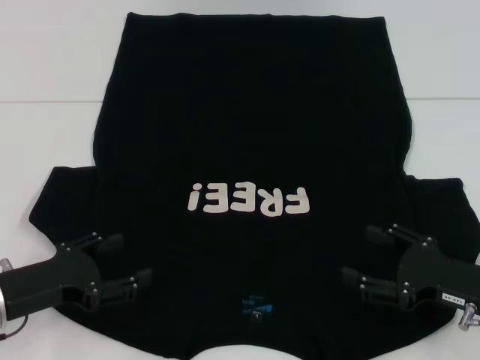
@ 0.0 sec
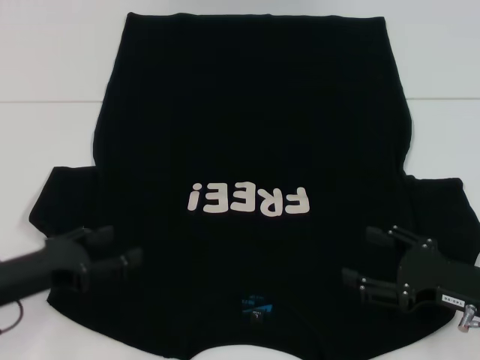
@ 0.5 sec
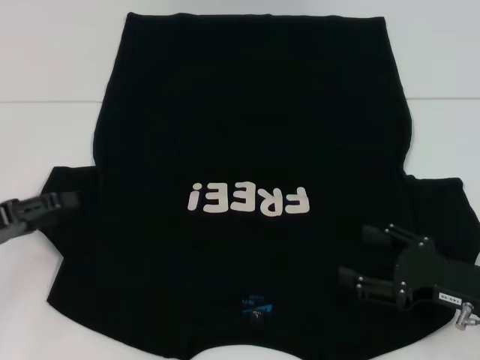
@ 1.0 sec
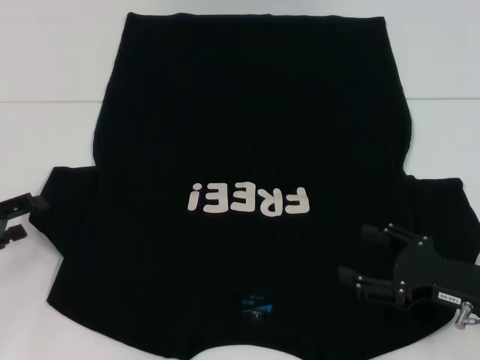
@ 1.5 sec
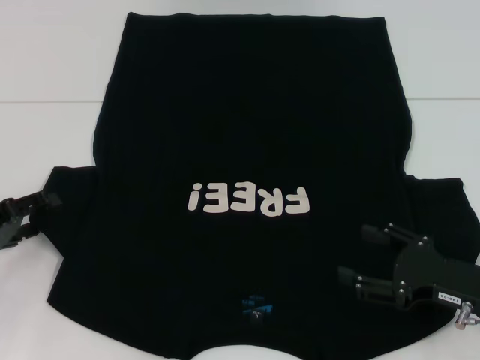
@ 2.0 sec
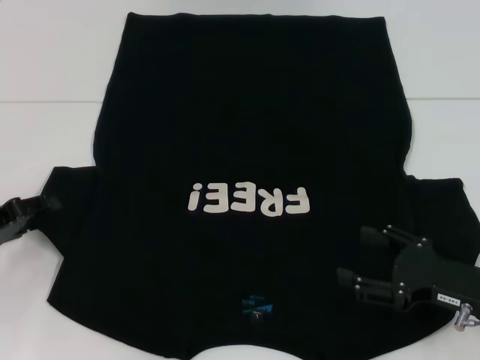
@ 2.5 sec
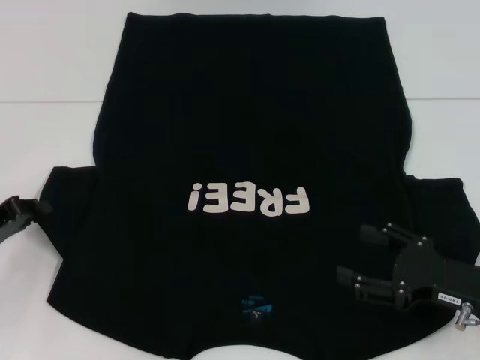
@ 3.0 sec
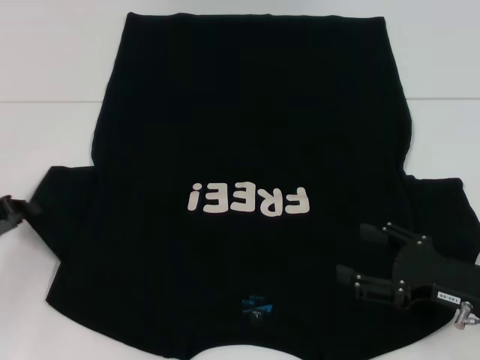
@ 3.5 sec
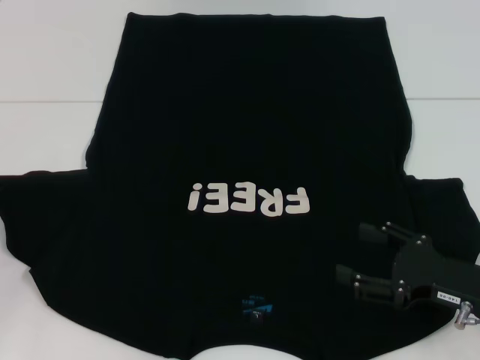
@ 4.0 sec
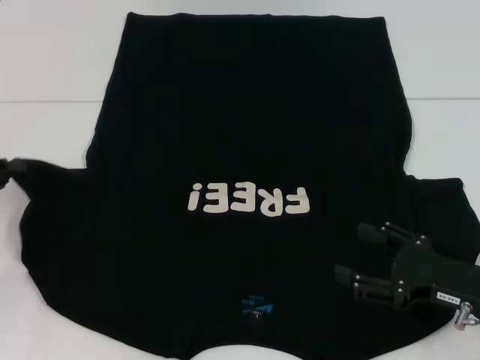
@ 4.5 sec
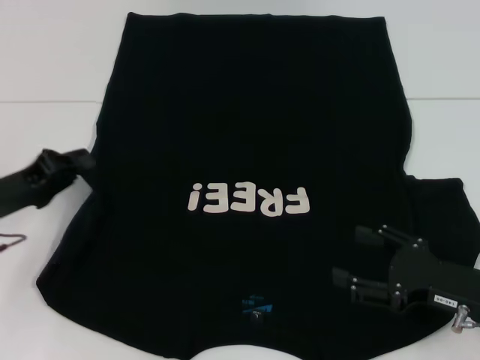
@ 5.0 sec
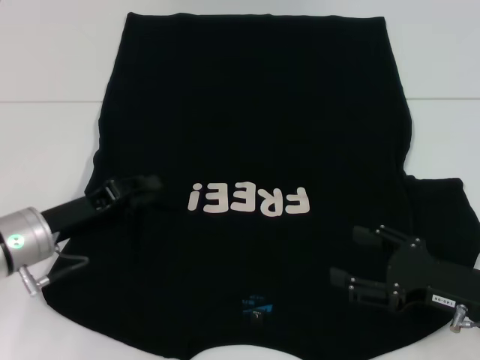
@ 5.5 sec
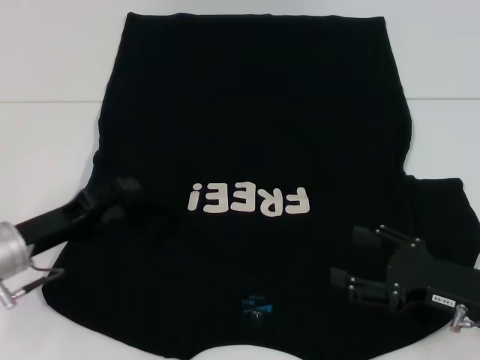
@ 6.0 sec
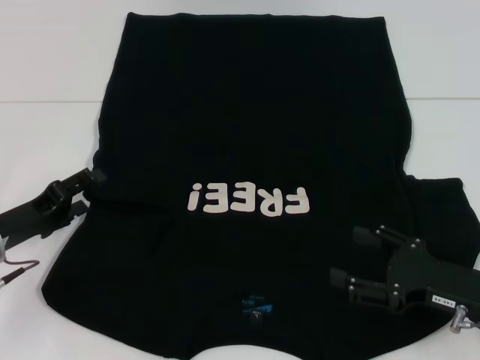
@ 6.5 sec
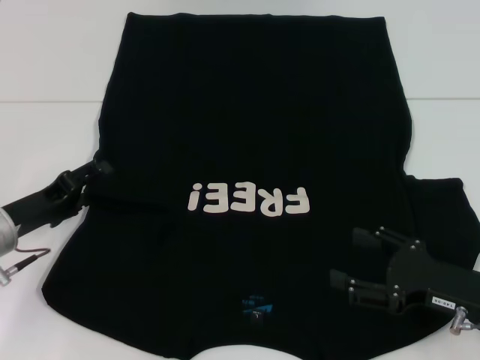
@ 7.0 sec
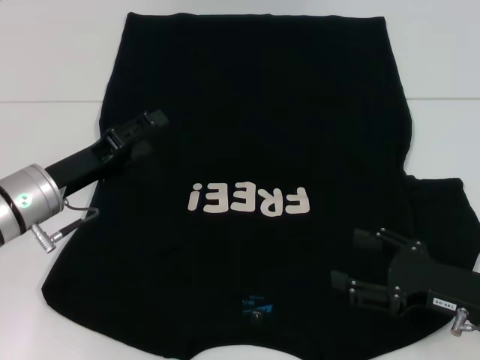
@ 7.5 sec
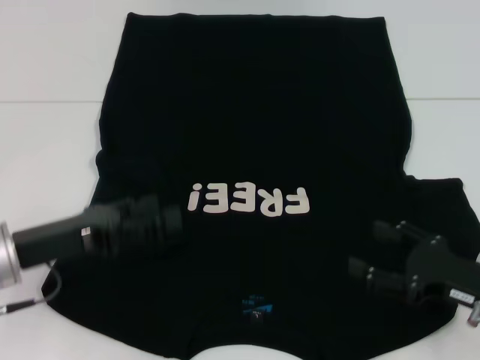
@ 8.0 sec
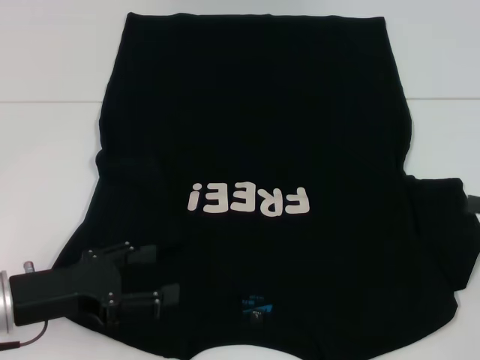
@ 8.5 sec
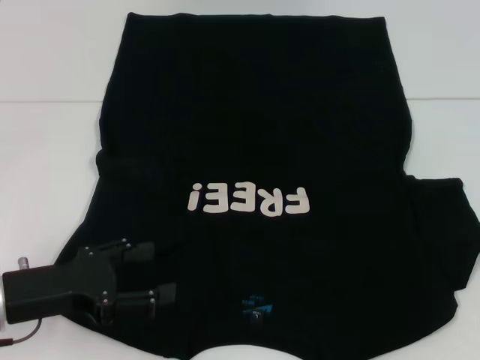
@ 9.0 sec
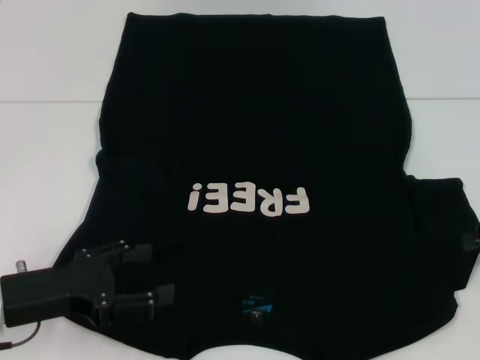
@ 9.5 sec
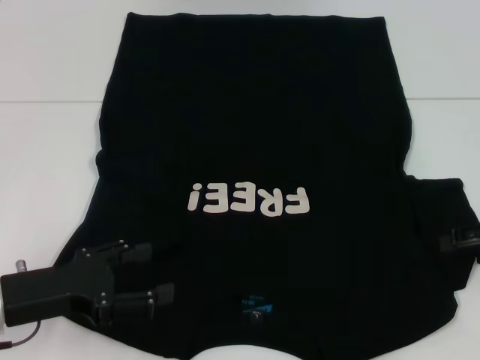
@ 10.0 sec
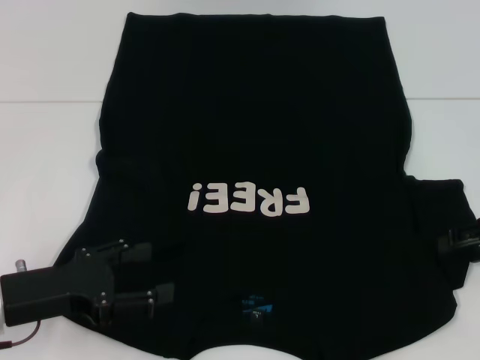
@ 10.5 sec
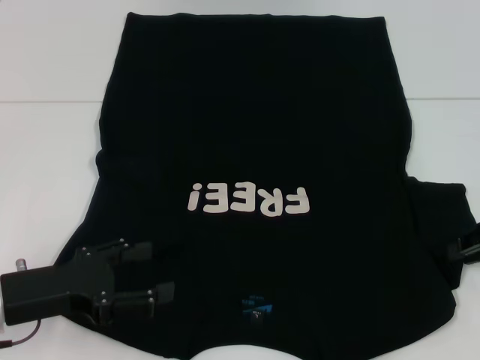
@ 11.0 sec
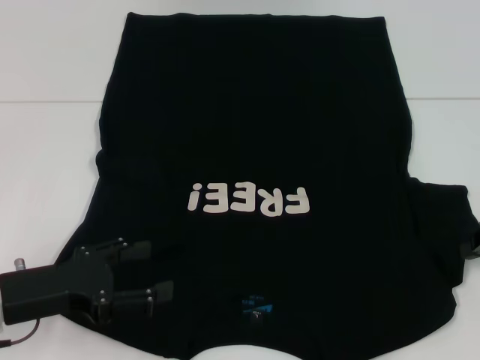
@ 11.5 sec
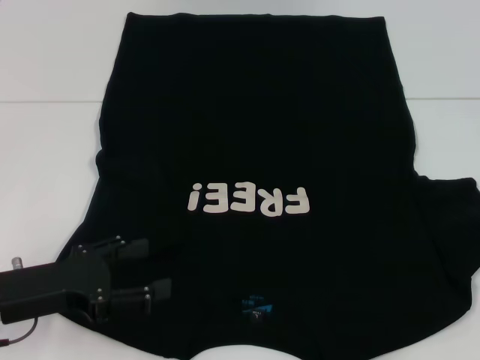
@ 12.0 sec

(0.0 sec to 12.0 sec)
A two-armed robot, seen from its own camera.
Step, 0.0 sec - 7.5 sec: Fold the bottom left sleeve with your left hand.
0.0 sec - 2.0 sec: The left gripper is displaced to the left by roughly 5 cm.
2.0 sec - 4.0 sec: The left gripper closes.
4.0 sec - 6.0 sec: The left gripper is displaced to the right by some 10 cm, and opens its fingers.
8.0 sec - 10.0 sec: The right gripper shifts about 15 cm upward, forward and to the right.
10.0 sec - 12.0 sec: The right gripper closes up.

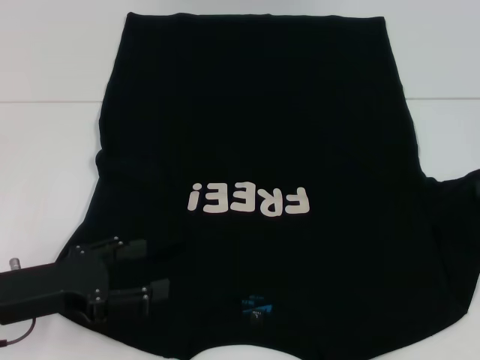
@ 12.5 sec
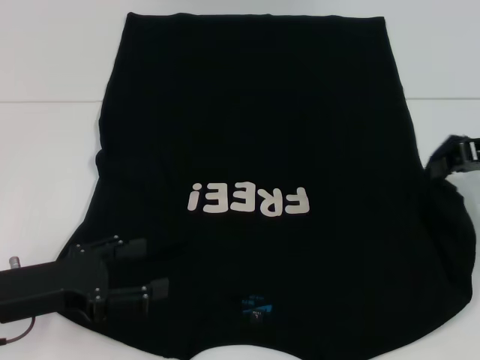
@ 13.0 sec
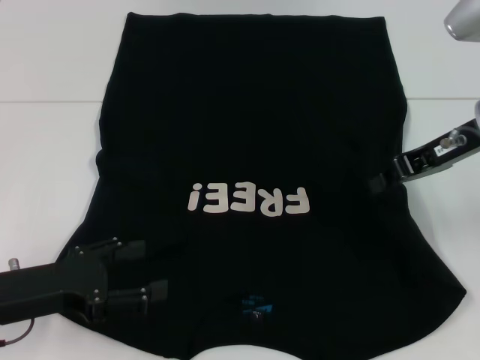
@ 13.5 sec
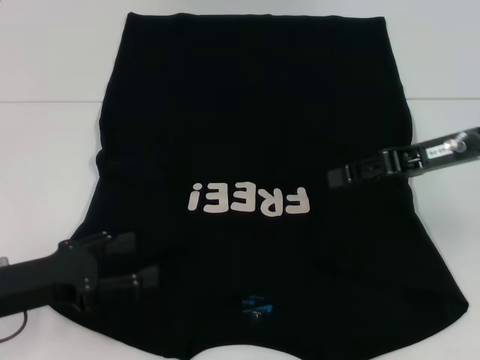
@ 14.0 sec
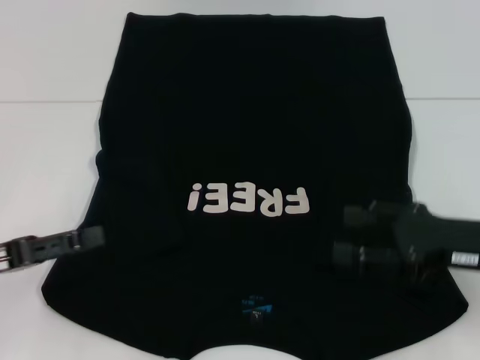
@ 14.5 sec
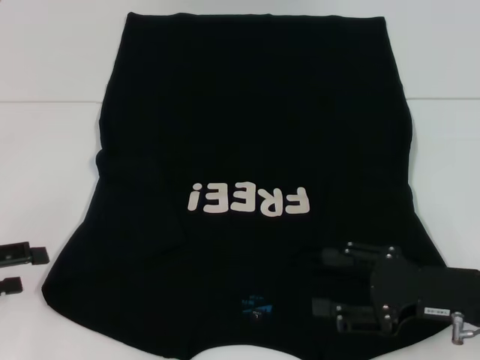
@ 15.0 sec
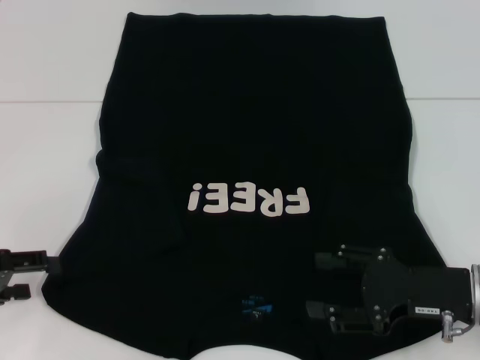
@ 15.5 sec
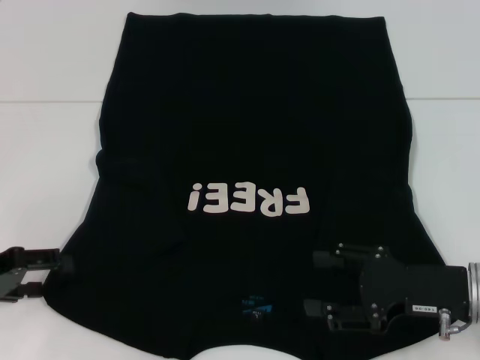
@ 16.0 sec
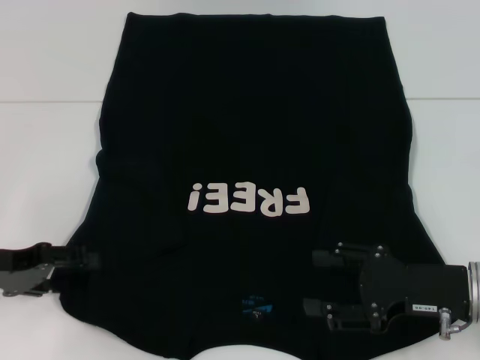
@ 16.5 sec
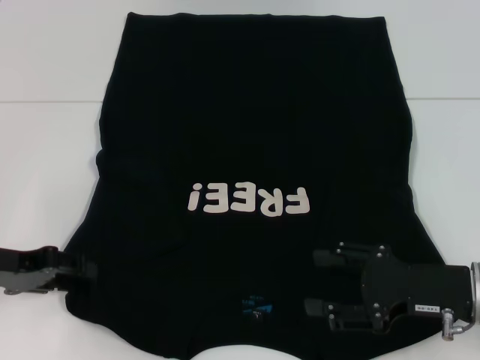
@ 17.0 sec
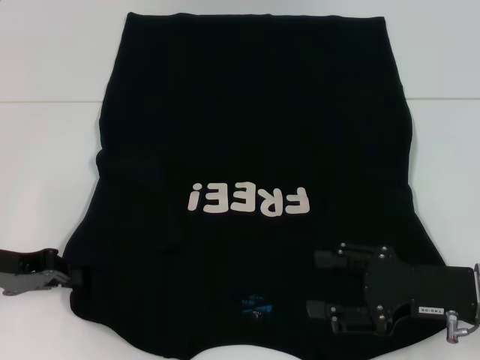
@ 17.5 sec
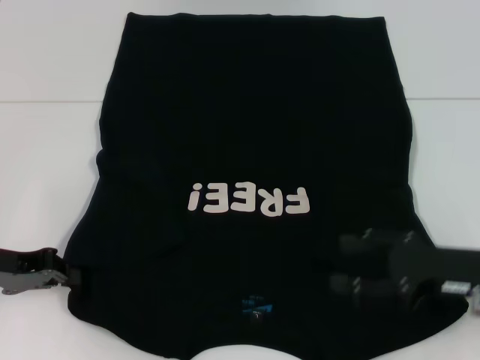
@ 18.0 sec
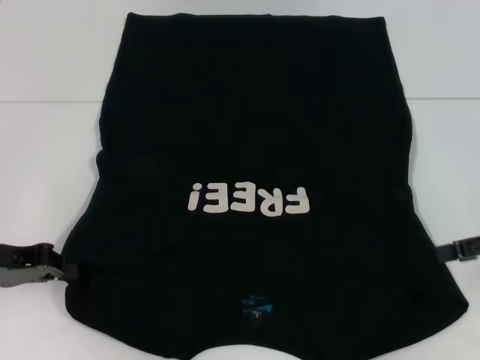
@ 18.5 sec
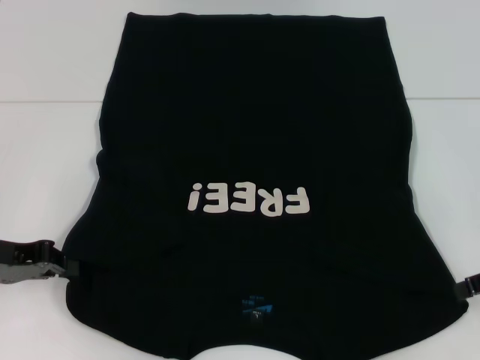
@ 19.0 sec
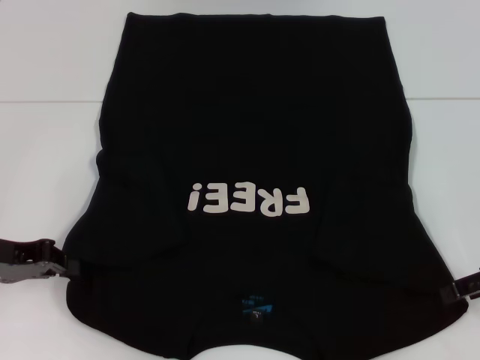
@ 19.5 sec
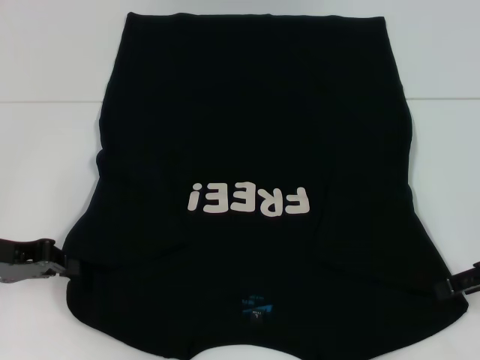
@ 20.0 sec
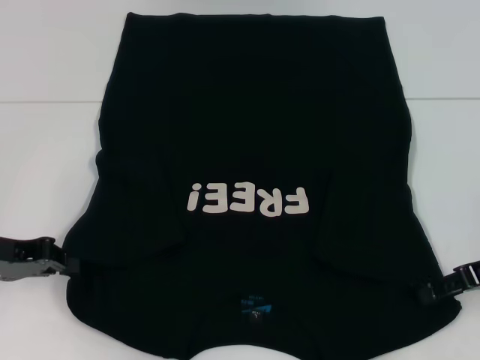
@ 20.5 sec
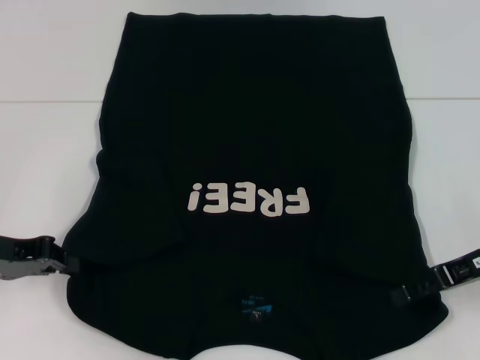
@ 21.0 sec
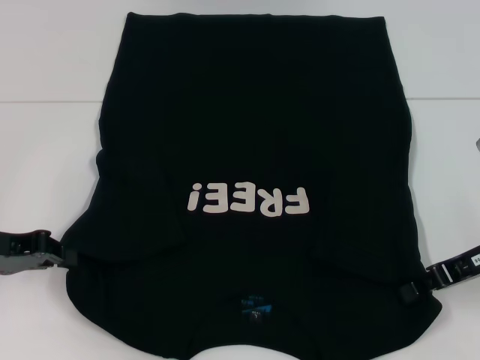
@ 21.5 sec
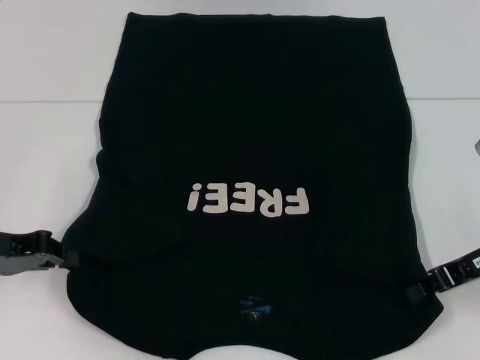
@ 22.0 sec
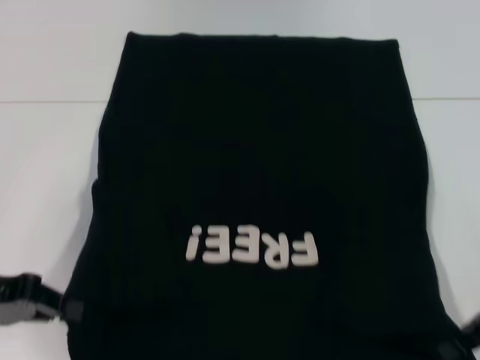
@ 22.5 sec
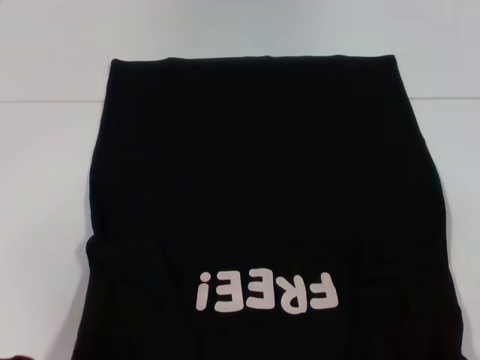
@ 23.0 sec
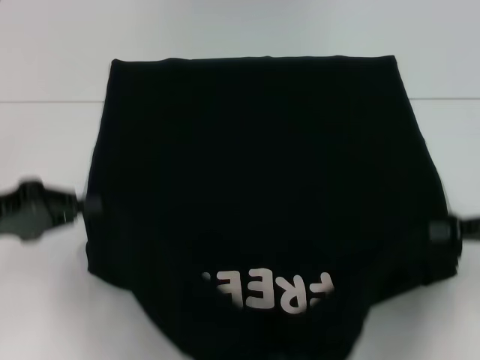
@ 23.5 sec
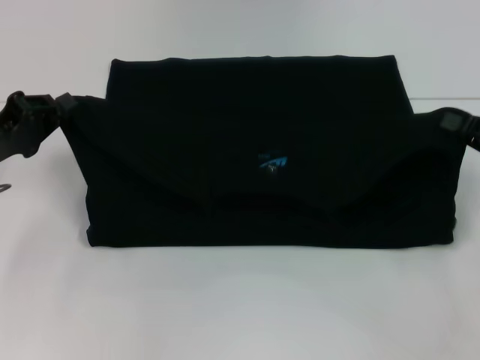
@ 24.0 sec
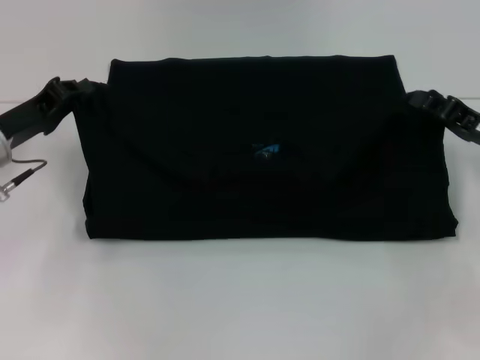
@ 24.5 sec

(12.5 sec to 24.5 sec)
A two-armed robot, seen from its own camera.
Step, 14.0 sec - 17.5 sec: Grab the top left corner with your left hand.
Step, 18.0 sec - 22.0 sec: Grab the top right corner with your right hand.
12.5 sec - 14.5 sec: The left gripper is displaced to the left by roughly 5 cm. The right gripper is displaced to the left, downward and backward by roughly 15 cm, and opens its fingers.
14.5 sec - 16.5 sec: The right gripper shifts by roughly 5 cm. The left gripper ends up approximately 5 cm from where it was.
16.5 sec - 18.5 sec: The right gripper travels to the right and upward by roughly 15 cm, while the left gripper closes up.
18.5 sec - 20.5 sec: The right gripper shifts by about 5 cm.
20.5 sec - 22.5 sec: The right gripper closes.
22.5 sec - 24.5 sec: The right gripper heads forward, covering roughly 5 cm. Meanwhile the left gripper goes about 10 cm forward.

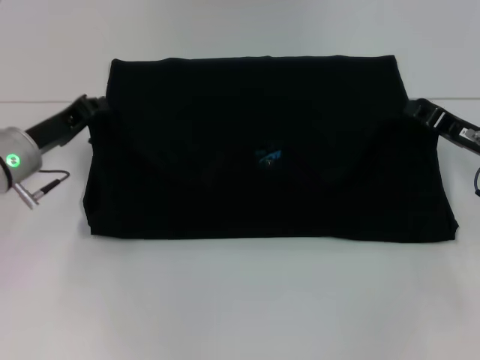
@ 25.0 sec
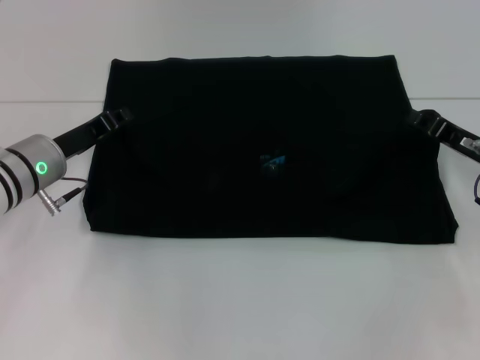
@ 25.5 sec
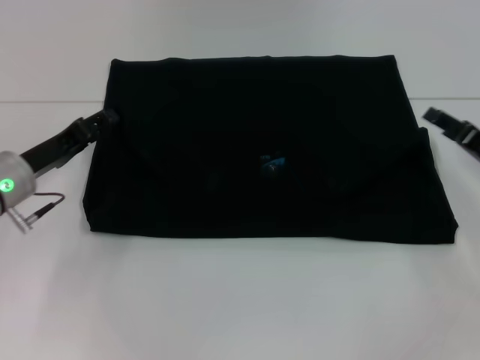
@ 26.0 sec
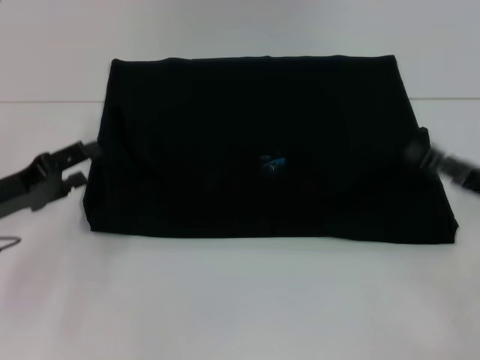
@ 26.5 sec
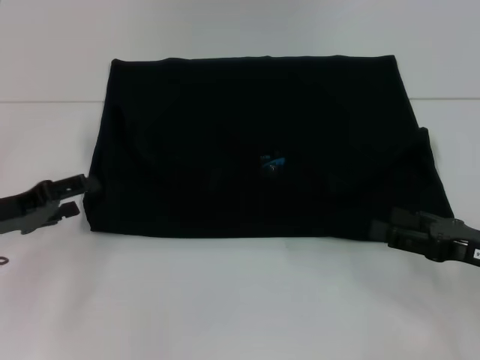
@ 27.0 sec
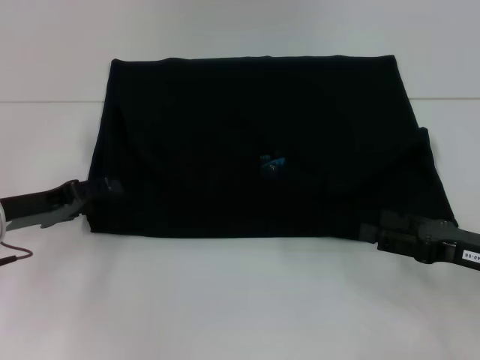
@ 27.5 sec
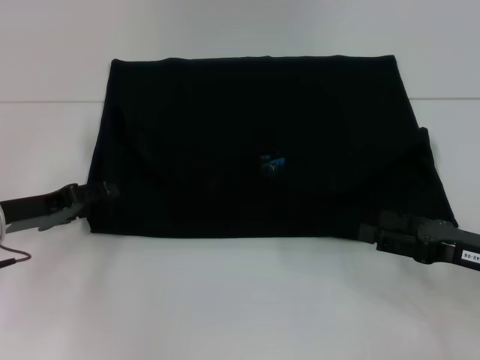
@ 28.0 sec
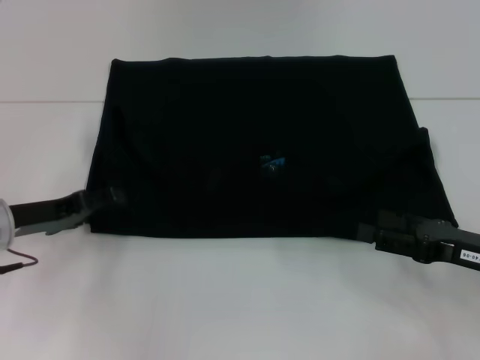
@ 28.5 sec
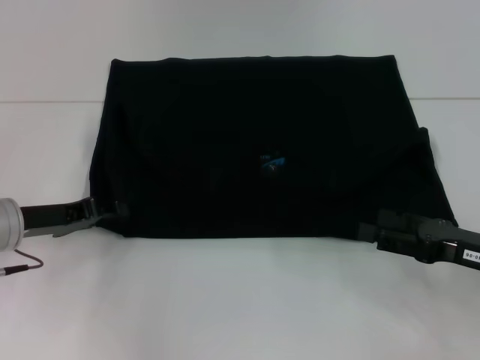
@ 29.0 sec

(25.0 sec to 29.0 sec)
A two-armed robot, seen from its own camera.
25.0 sec - 27.0 sec: The left gripper travels backward and to the left by approximately 10 cm, and opens up. The right gripper moves backward, roughly 10 cm, and opens up.
27.0 sec - 29.0 sec: The left gripper closes its fingers.
